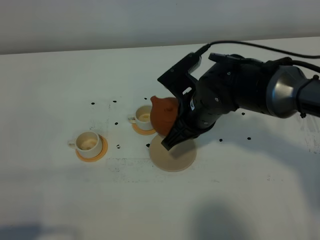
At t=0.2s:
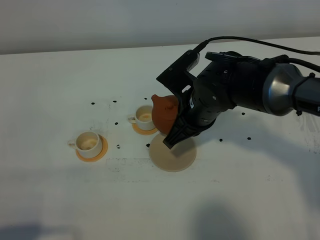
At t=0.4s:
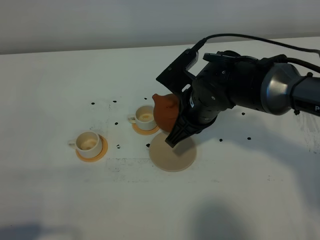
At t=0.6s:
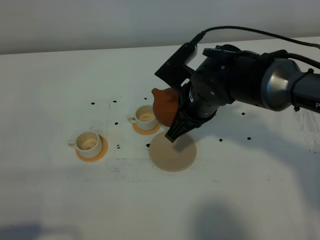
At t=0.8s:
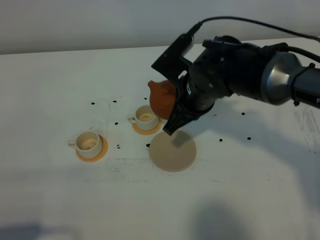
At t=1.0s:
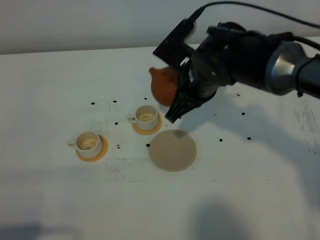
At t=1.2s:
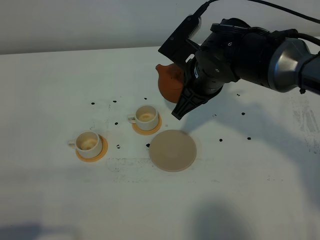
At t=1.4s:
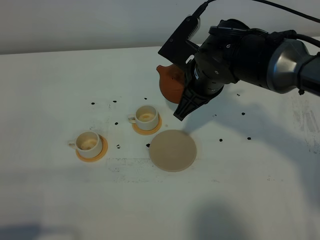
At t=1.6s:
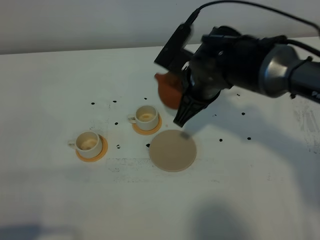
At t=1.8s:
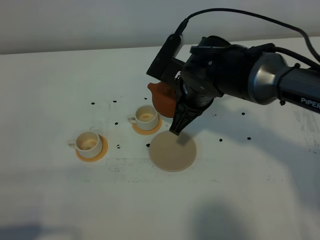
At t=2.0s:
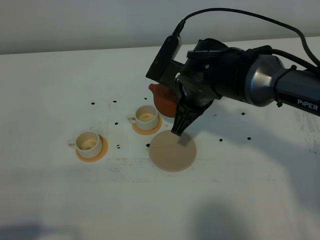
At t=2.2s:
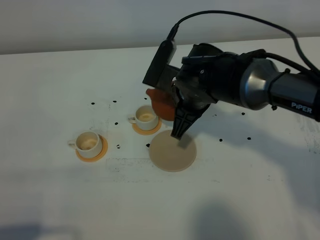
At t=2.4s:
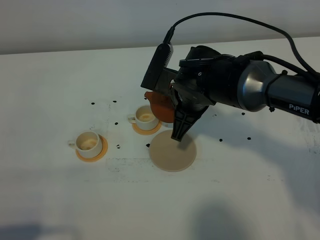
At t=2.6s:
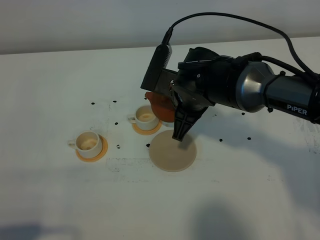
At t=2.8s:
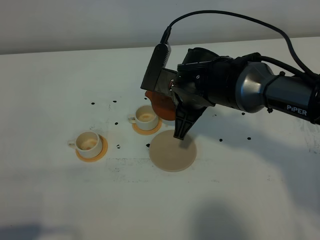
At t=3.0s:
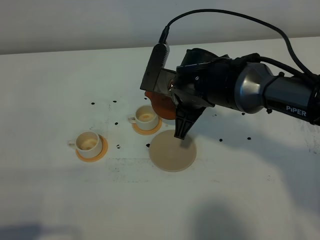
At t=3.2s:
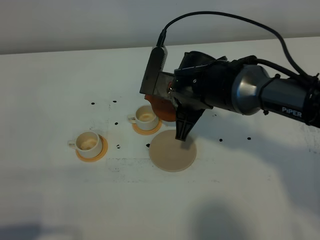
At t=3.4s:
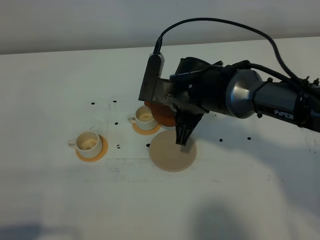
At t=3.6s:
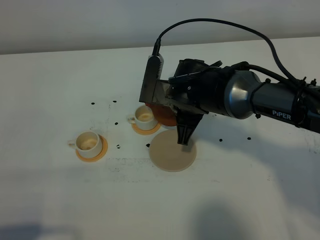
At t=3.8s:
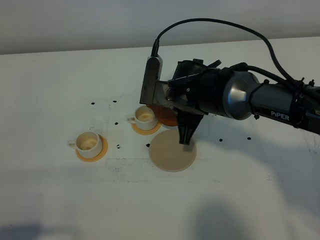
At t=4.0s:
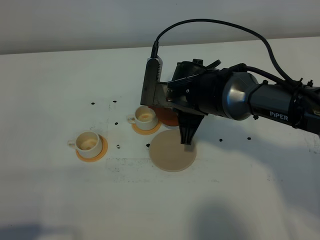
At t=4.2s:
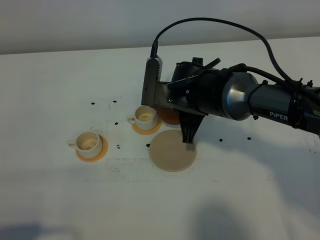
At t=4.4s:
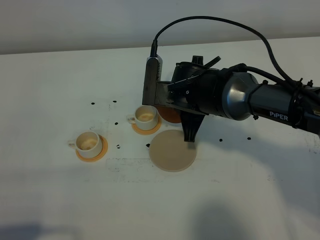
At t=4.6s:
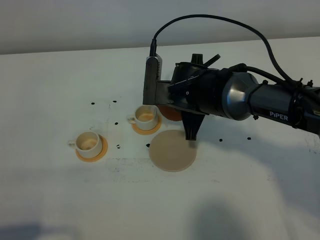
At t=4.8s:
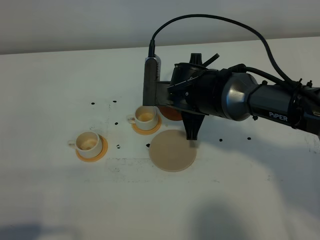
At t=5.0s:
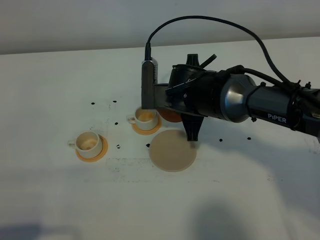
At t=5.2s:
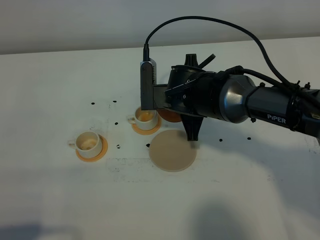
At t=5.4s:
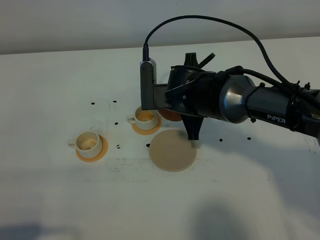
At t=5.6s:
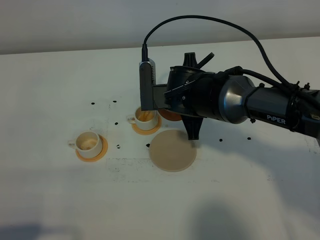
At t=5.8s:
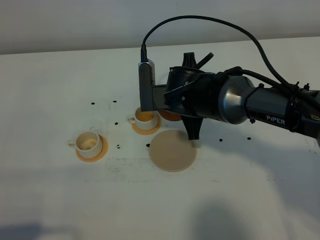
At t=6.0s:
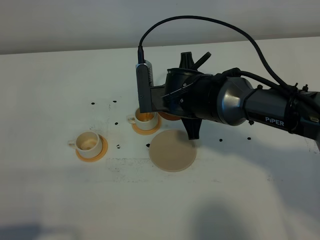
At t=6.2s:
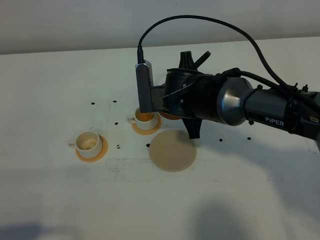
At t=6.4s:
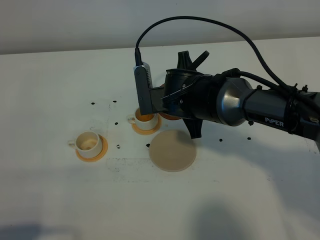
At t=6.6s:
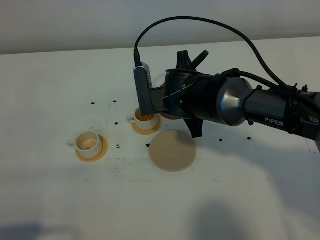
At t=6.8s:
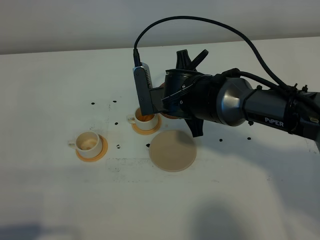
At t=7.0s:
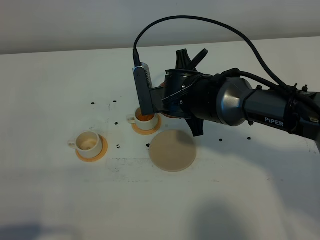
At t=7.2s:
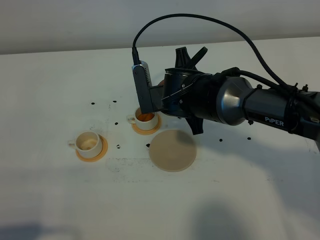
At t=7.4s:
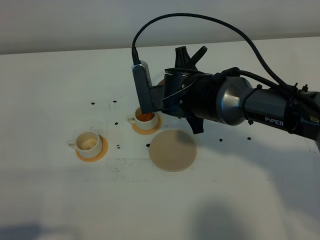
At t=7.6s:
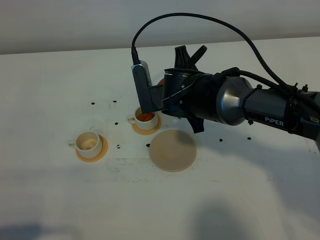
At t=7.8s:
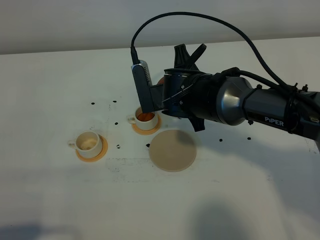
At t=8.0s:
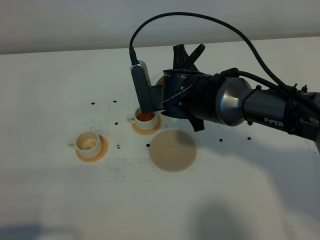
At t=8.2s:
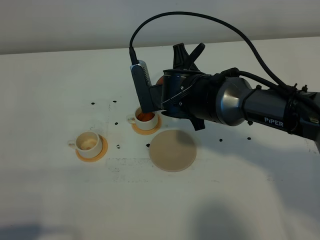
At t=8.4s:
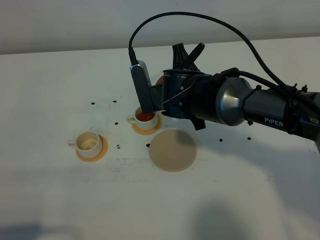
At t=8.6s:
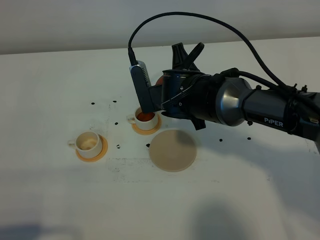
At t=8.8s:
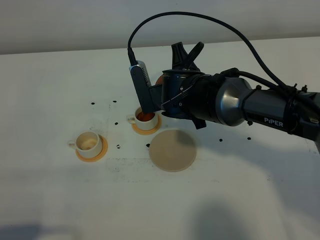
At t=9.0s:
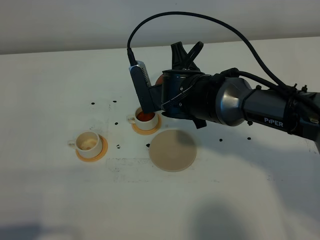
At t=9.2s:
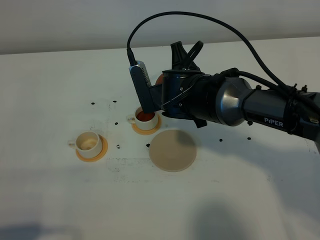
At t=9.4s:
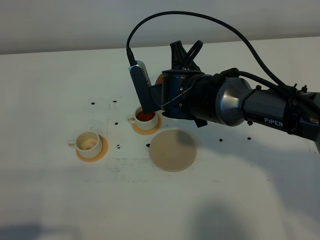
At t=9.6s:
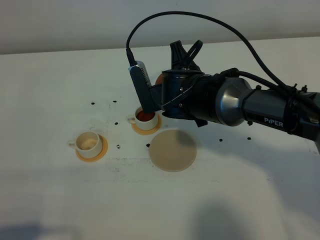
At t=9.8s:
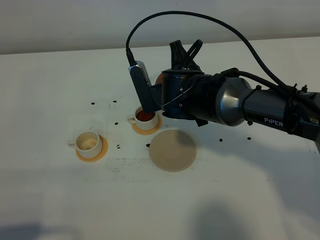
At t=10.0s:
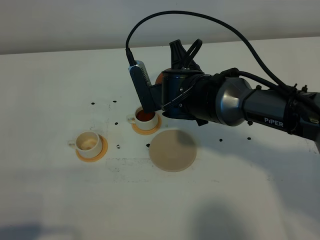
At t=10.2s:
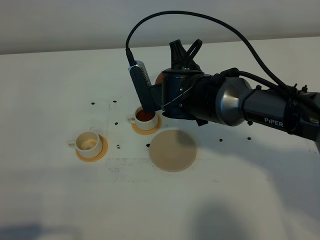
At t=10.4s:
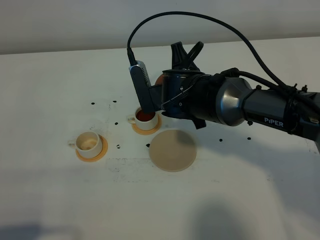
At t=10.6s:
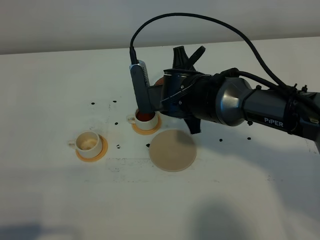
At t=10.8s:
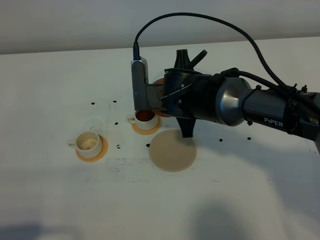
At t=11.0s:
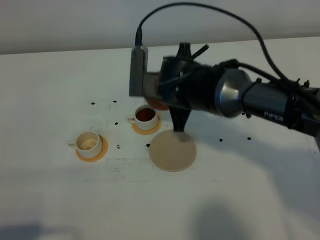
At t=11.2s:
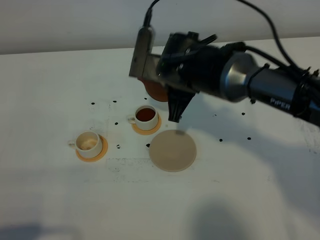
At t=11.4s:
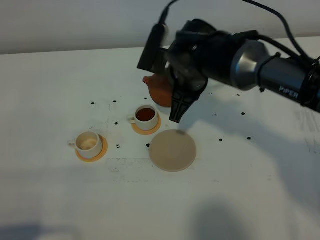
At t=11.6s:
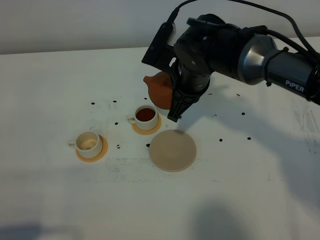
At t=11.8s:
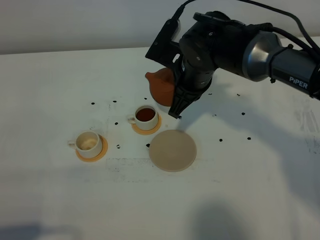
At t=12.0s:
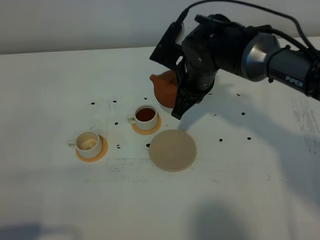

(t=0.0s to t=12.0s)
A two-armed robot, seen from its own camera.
Task of the whole recording: grasp the brown teapot and pour the tea into the two white teacups one by one, put the brown teapot back in its original place.
t=0.0s - t=1.6s: There are only small adjustments of the grippers.
t=1.6s - t=3.0s: The grippers make only small movements.
t=3.0s - t=4.4s: The grippers move only a little.
t=4.4s - t=6.0s: The grippers move only a little.
t=6.0s - t=9.0s: The grippers stay close to where they were, moving slightly.
t=9.0s - t=10.4s: Both grippers stay about where they are.

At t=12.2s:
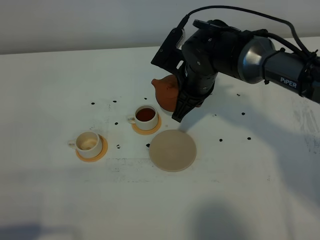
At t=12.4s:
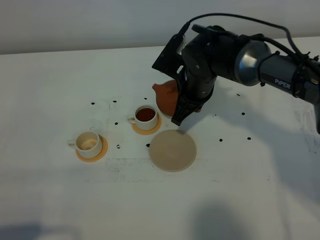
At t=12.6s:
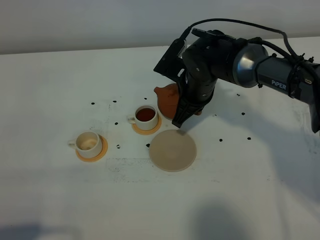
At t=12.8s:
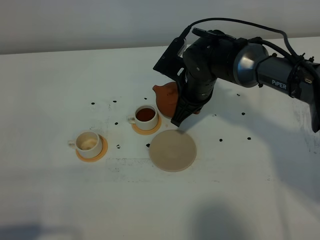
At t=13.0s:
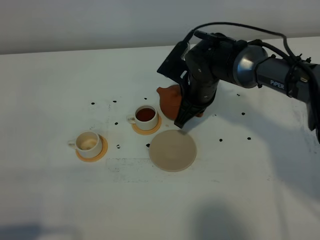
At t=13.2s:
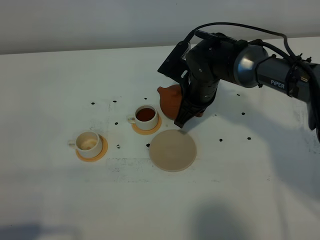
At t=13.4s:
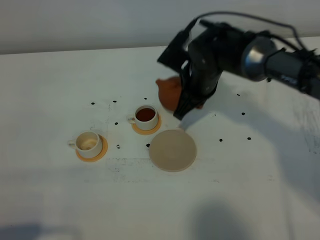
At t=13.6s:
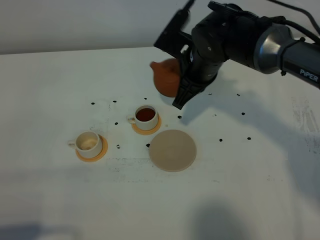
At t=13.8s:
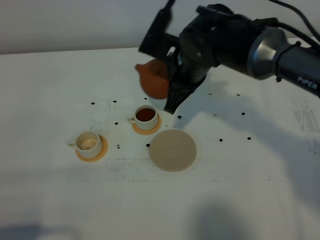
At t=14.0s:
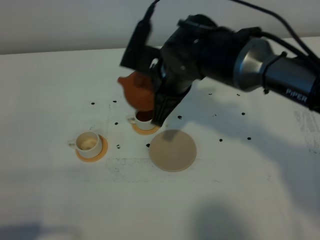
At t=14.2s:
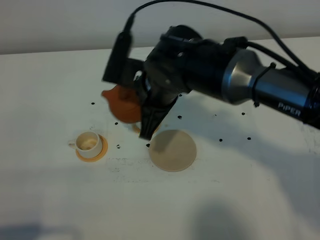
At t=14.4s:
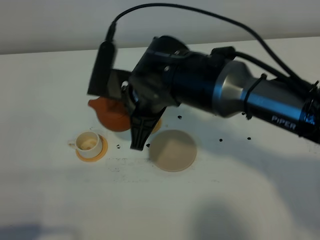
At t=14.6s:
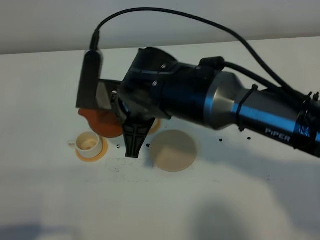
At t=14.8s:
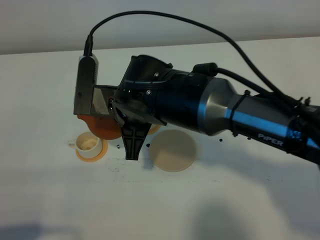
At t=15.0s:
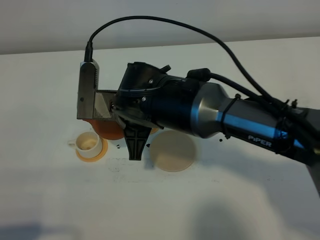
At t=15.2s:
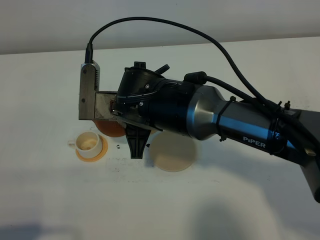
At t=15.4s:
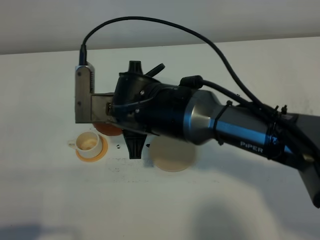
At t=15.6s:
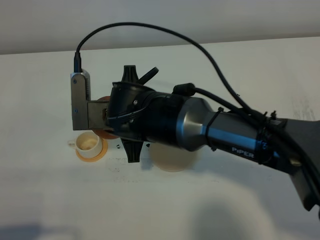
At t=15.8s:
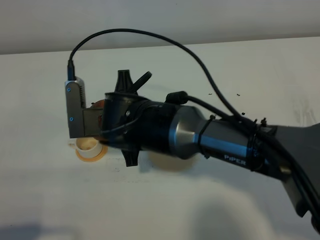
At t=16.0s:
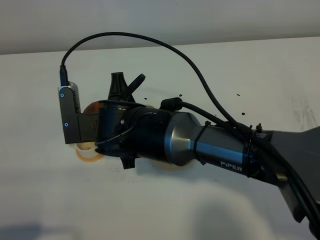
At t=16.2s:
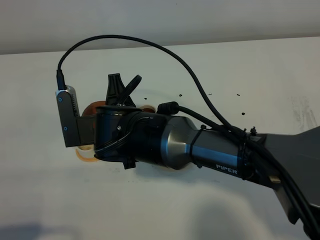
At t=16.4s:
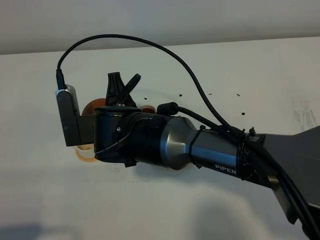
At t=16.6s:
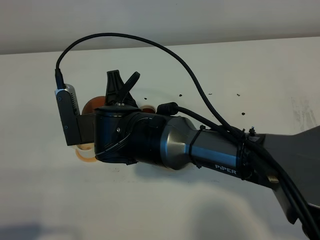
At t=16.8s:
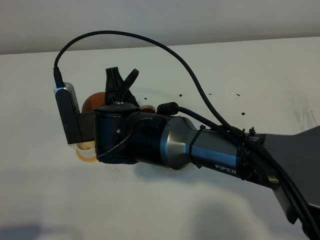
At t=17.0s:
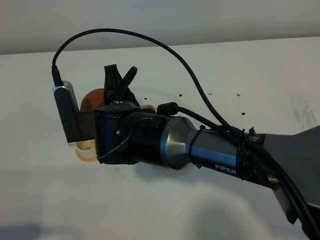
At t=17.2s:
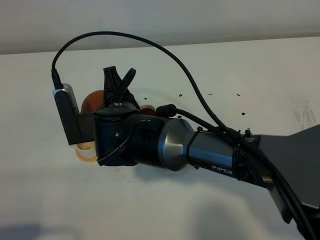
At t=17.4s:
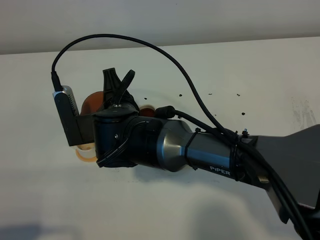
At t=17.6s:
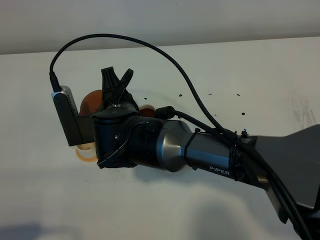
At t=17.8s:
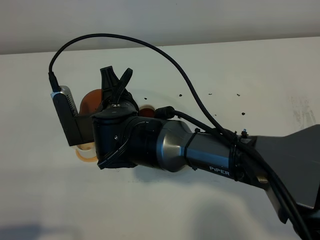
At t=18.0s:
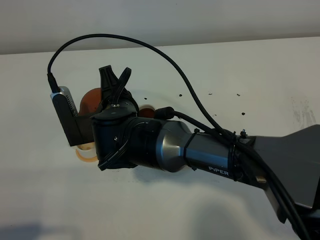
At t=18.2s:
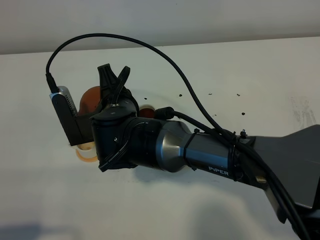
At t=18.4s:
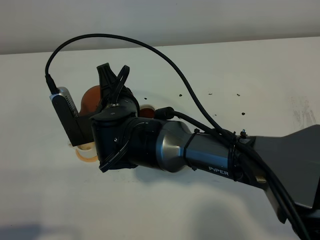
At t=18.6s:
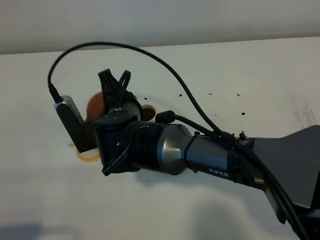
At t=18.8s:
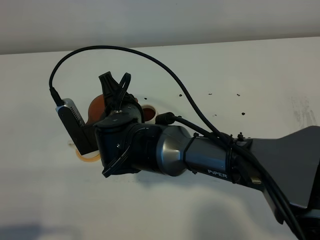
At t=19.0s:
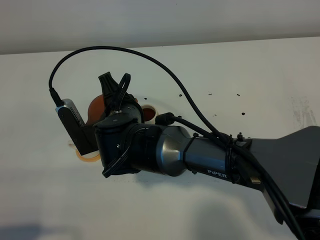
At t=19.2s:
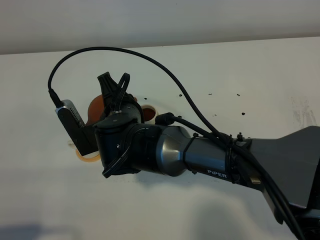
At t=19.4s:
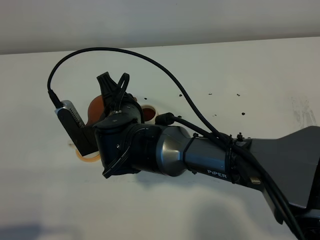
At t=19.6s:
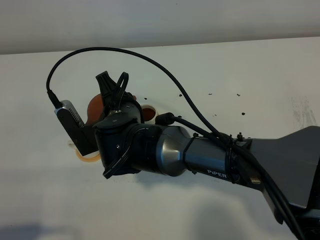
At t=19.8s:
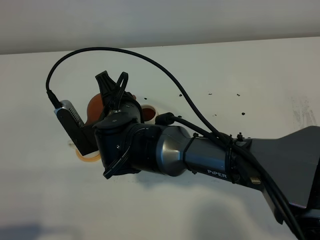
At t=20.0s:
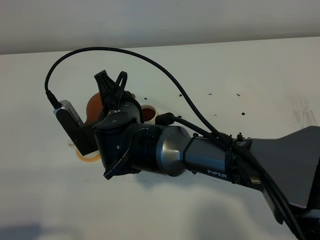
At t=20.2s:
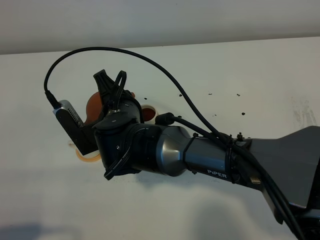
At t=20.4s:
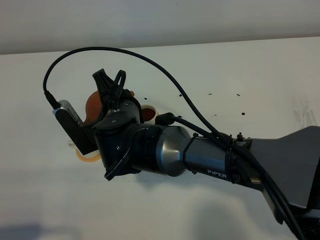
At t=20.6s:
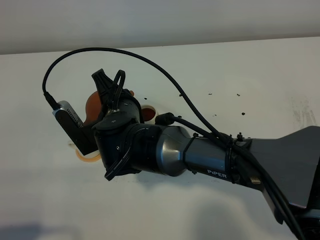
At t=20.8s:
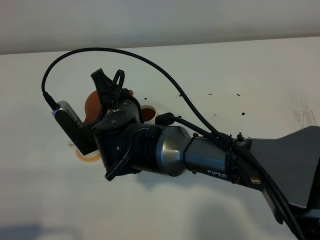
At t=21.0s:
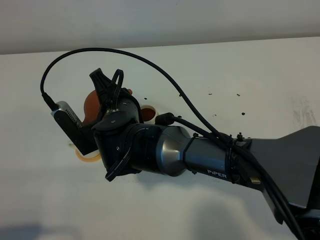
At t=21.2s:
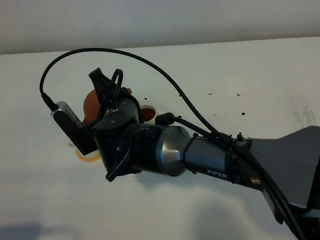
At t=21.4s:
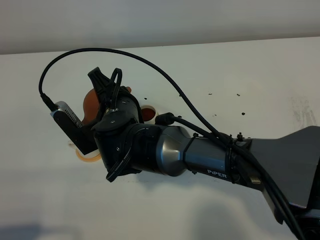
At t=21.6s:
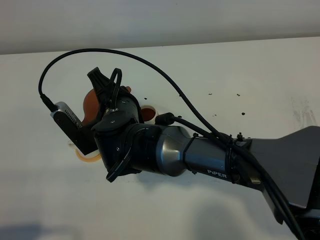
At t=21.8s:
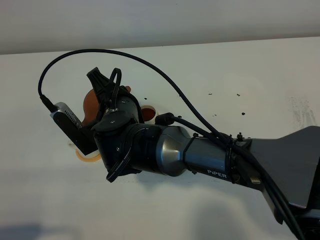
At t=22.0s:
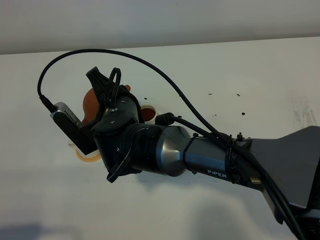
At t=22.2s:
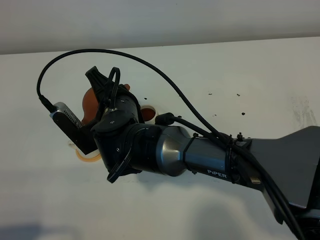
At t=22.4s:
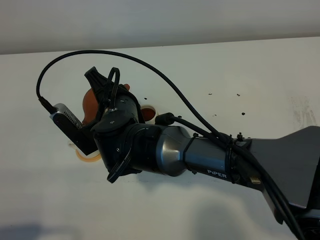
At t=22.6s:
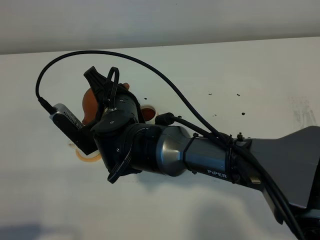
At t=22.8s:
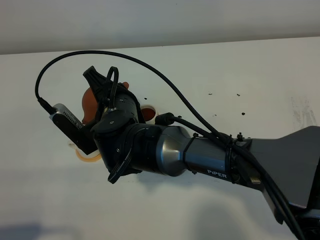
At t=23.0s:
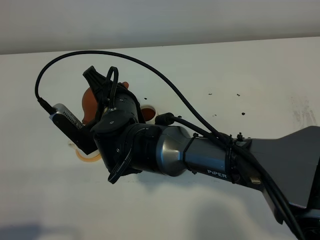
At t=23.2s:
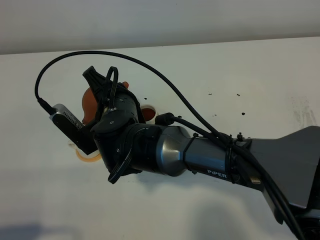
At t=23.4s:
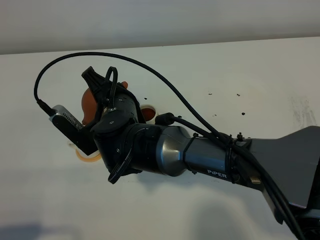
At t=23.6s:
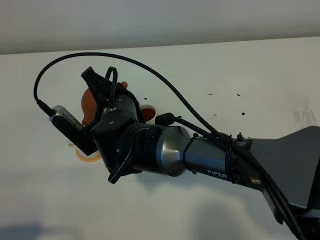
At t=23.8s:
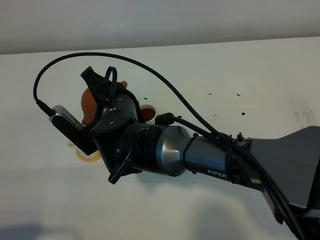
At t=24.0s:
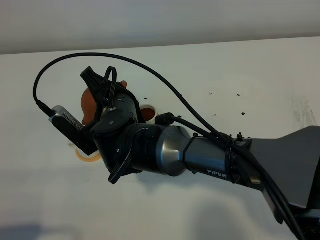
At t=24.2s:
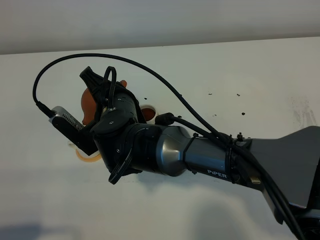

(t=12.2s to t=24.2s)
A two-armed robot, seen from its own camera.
Task of the whole recording: grasp the brown teapot and pour the tea into the two white teacups one by one, put the brown teapot back in its original place.
t=12.2s - t=13.8s: The right gripper ends up roughly 5 cm from where it was.
t=13.8s - t=15.2s: The right gripper travels to the left and backward by some 10 cm.
t=16.6s - t=19.8s: The grippers make only small movements.
t=19.8s - t=22.6s: There are only small adjustments of the grippers.
t=22.6s - t=24.2s: Both grippers stay about where they are.
